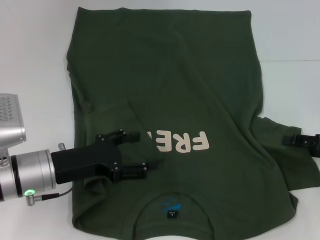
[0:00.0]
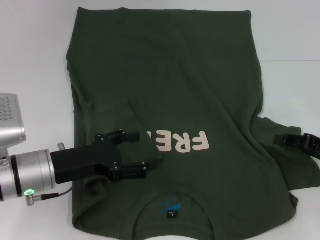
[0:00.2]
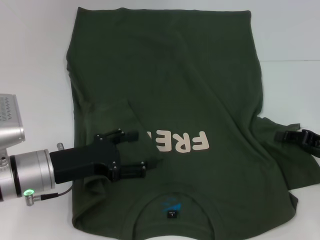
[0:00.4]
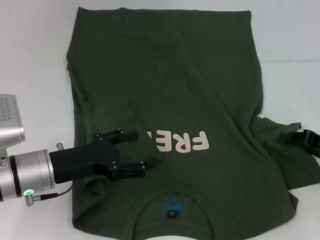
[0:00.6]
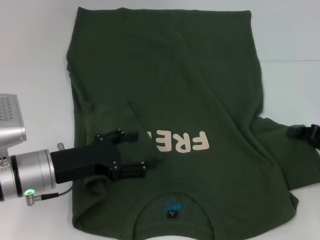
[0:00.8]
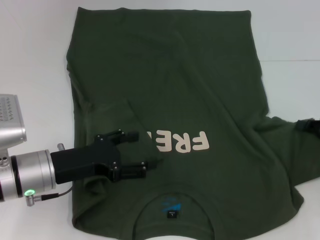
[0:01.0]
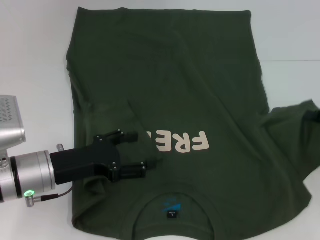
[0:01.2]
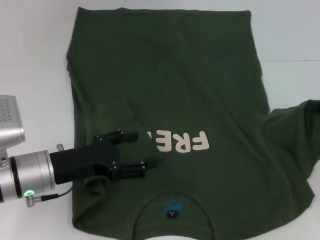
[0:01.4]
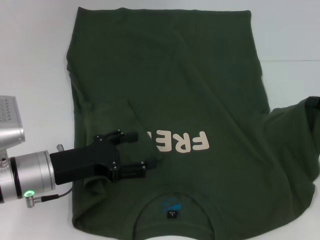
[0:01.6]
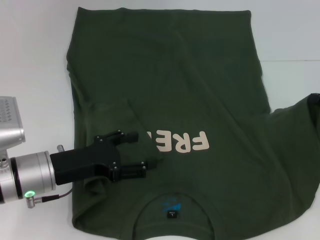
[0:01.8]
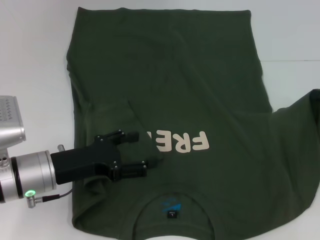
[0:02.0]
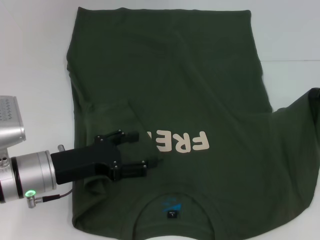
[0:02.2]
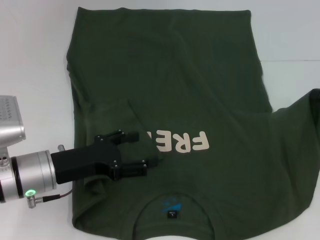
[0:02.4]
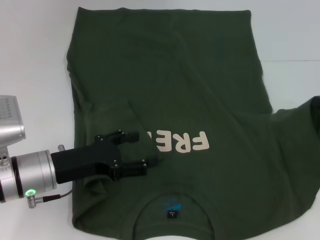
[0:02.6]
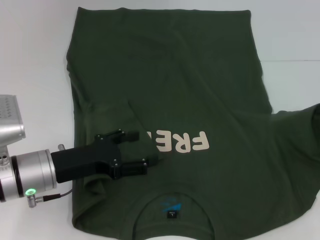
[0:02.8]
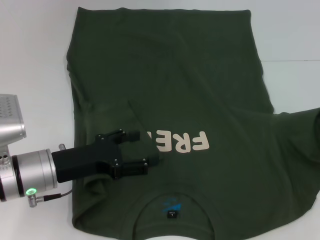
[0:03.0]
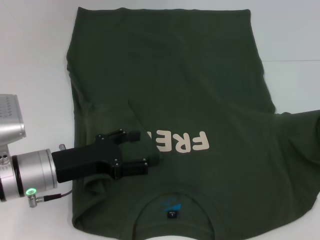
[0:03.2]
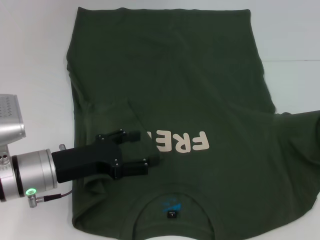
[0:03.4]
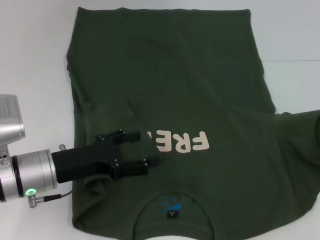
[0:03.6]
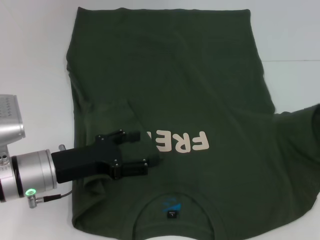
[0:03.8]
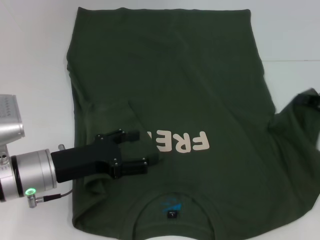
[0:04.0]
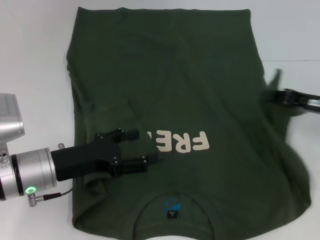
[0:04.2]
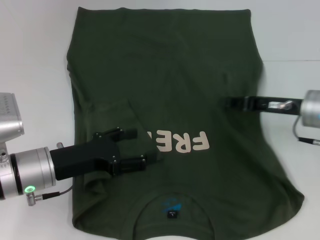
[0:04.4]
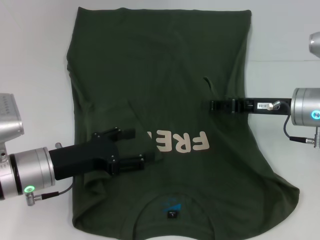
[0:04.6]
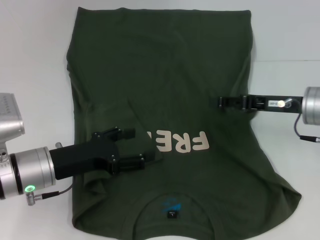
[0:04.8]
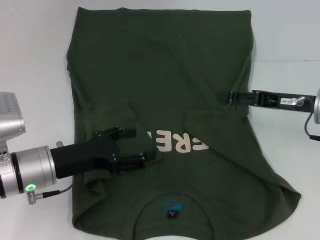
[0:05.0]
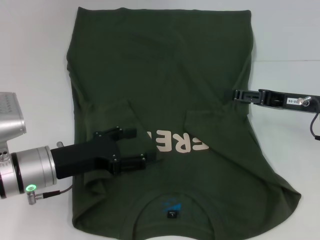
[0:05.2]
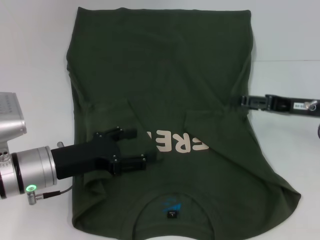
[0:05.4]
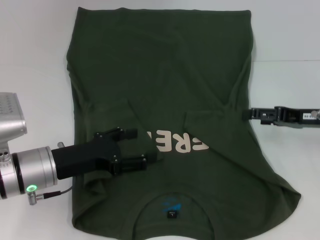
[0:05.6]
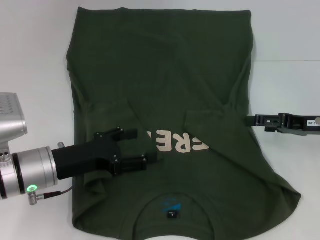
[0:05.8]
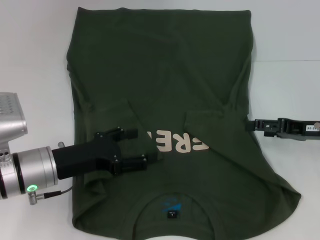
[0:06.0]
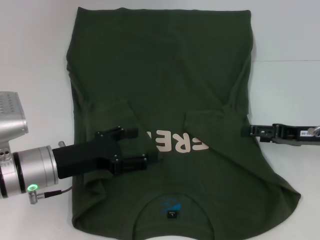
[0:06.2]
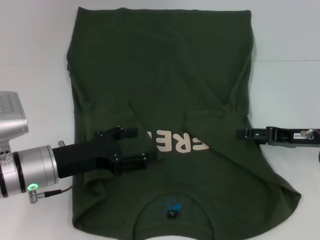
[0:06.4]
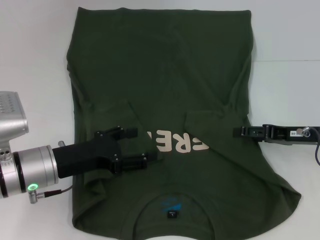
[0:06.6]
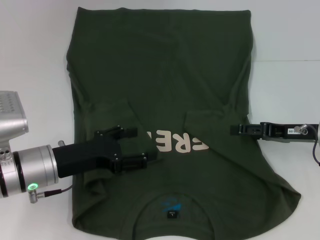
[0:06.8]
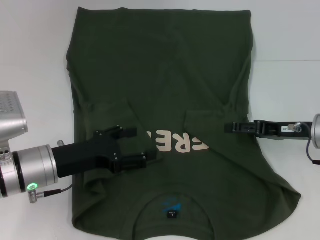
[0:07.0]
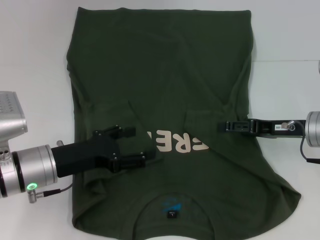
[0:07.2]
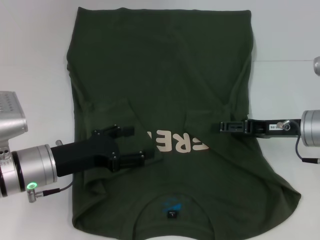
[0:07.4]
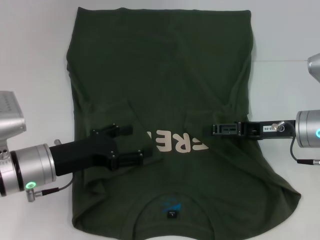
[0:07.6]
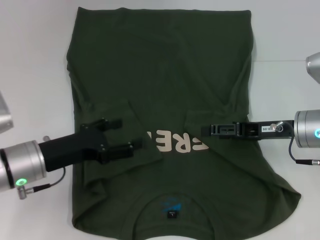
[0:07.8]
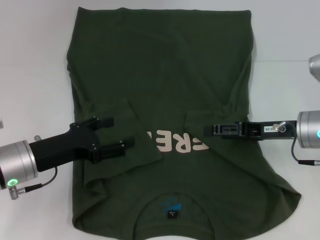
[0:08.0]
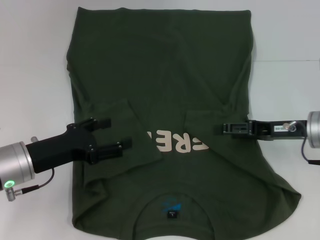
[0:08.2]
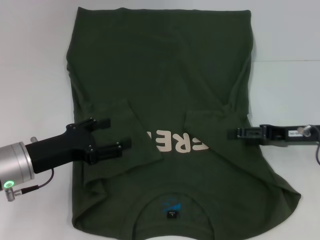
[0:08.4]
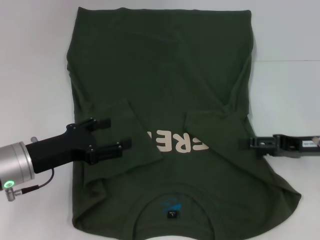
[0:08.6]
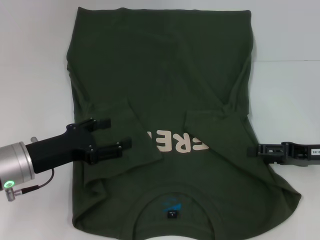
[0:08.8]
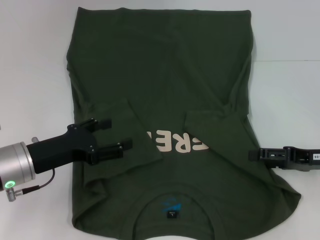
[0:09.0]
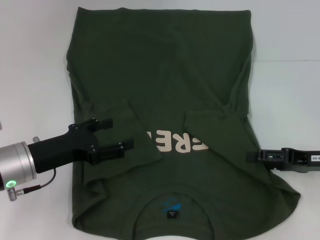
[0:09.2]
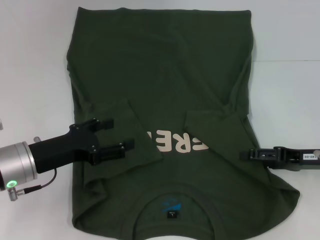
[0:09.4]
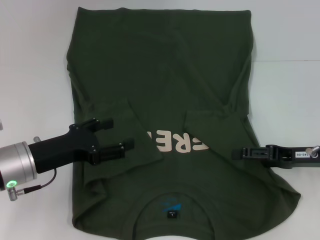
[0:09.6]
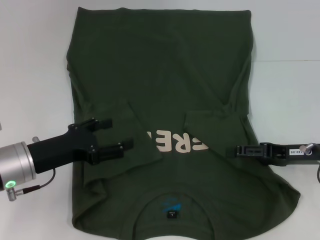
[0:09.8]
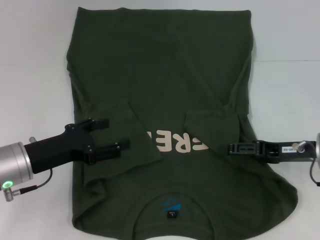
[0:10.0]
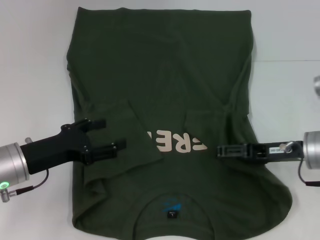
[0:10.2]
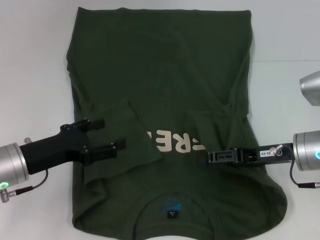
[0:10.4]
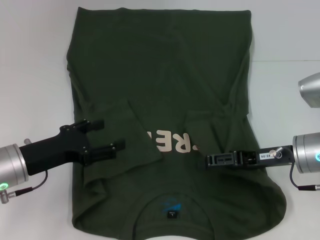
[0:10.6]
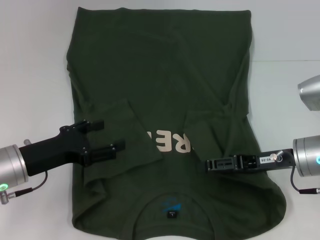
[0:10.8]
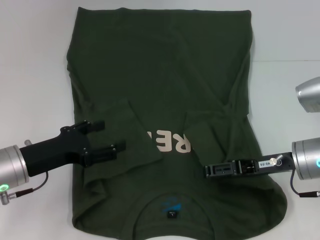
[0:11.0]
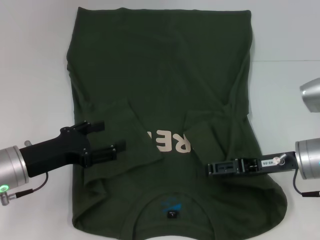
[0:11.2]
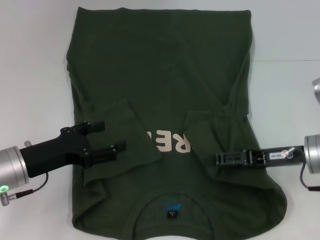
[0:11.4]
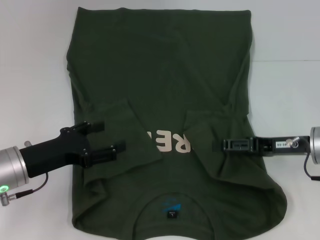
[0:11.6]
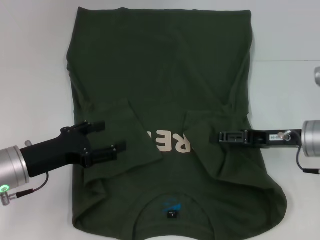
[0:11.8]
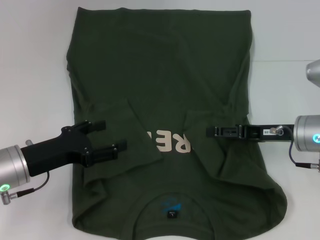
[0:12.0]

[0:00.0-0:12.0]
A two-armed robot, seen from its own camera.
0:00.0 to 0:01.6: The right gripper closes.
0:01.6 to 0:03.0: There are only small adjustments of the grippers.
0:03.0 to 0:04.4: The right gripper moves to the left, about 15 cm.
0:04.4 to 0:06.0: The right gripper travels to the right by approximately 5 cm, and opens.
0:06.0 to 0:07.6: The right gripper moves to the left, approximately 5 cm.
0:07.6 to 0:09.0: The right gripper goes roughly 5 cm to the right.
0:09.0 to 0:10.4: The right gripper travels to the left by approximately 10 cm.
0:10.4 to 0:12.0: The grippers make only small movements.

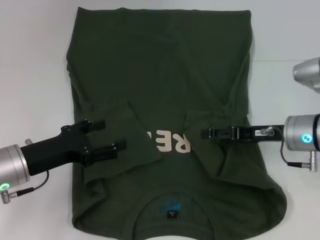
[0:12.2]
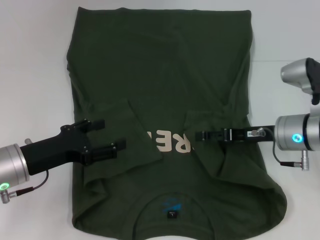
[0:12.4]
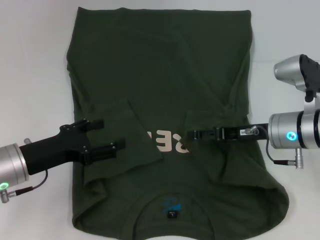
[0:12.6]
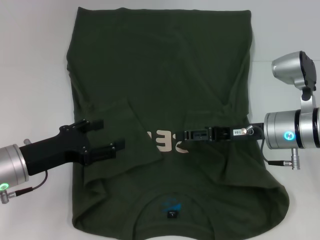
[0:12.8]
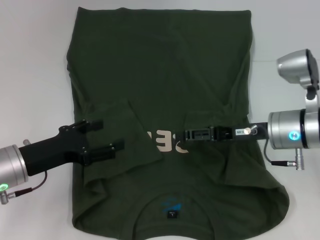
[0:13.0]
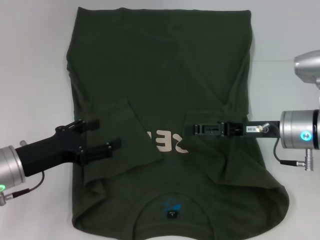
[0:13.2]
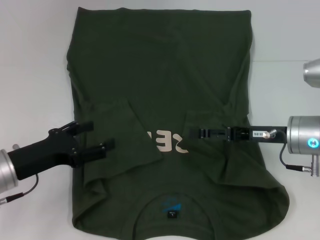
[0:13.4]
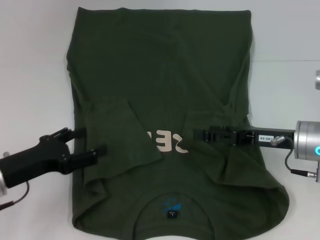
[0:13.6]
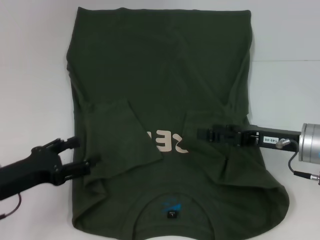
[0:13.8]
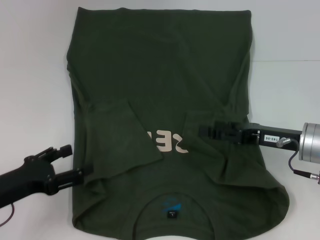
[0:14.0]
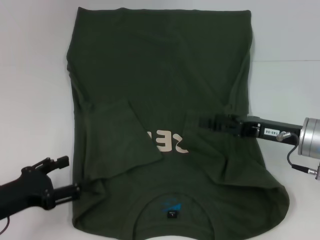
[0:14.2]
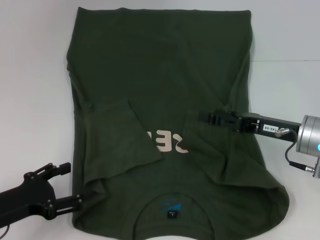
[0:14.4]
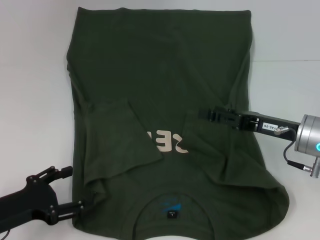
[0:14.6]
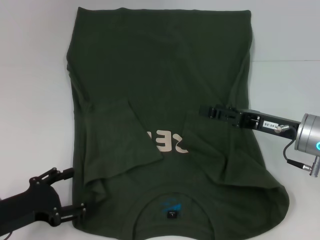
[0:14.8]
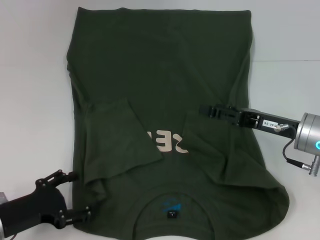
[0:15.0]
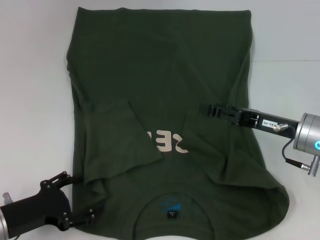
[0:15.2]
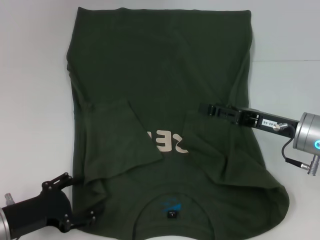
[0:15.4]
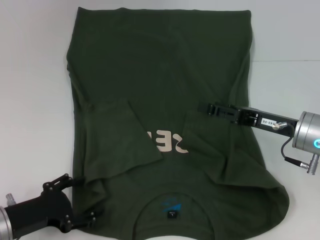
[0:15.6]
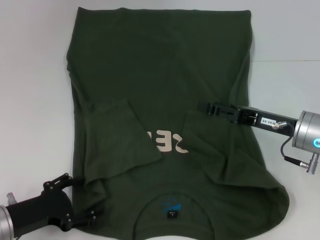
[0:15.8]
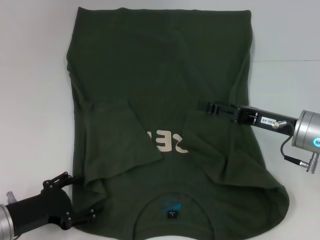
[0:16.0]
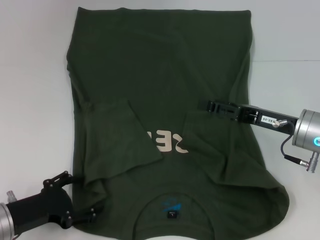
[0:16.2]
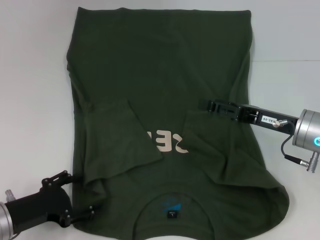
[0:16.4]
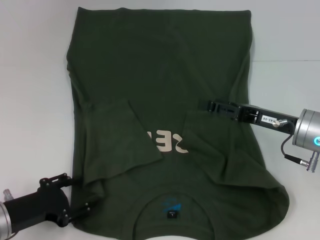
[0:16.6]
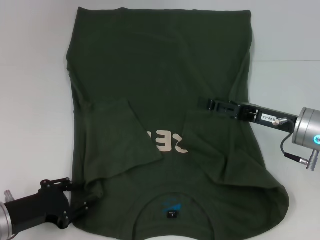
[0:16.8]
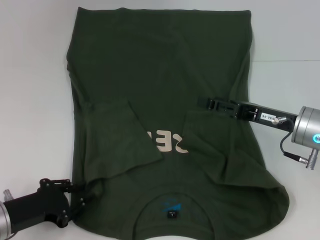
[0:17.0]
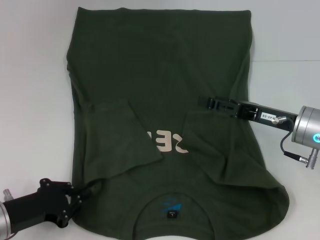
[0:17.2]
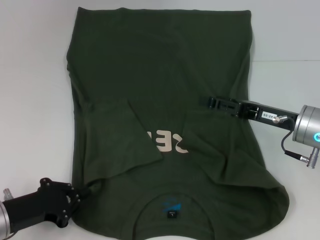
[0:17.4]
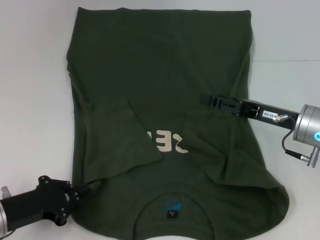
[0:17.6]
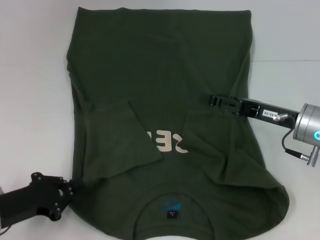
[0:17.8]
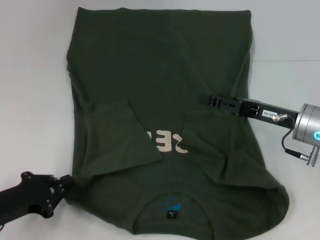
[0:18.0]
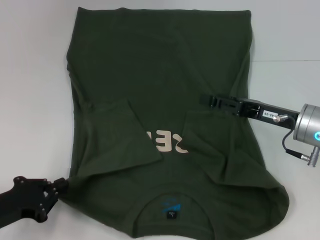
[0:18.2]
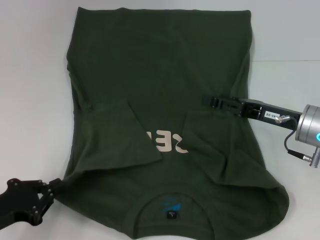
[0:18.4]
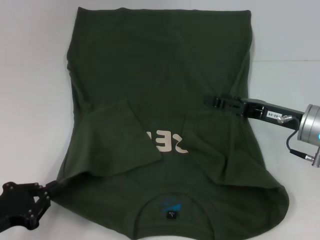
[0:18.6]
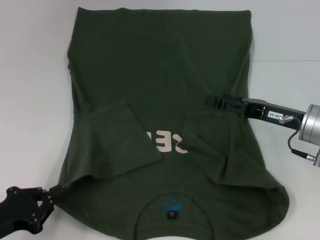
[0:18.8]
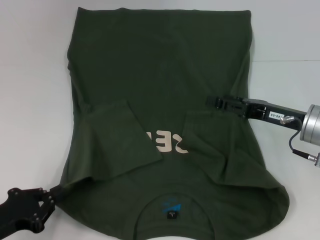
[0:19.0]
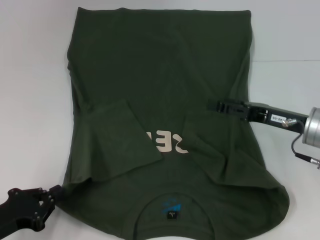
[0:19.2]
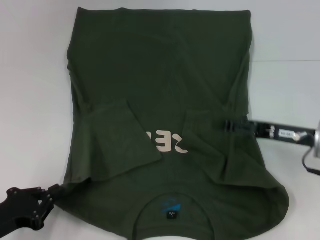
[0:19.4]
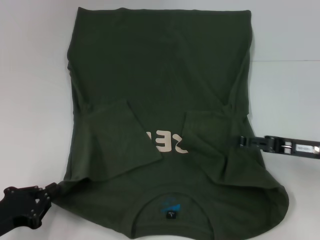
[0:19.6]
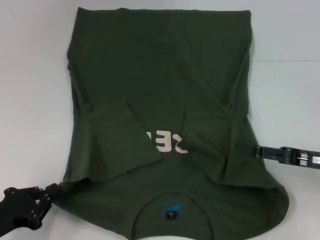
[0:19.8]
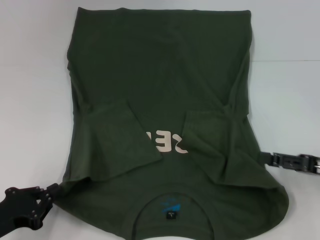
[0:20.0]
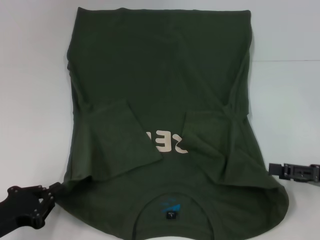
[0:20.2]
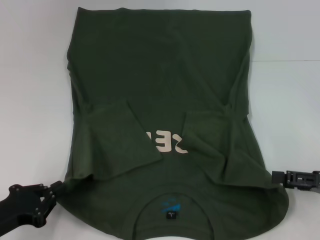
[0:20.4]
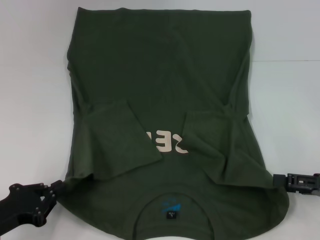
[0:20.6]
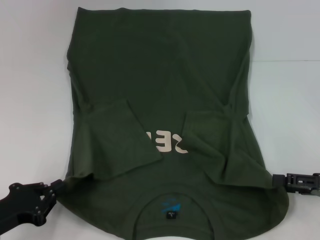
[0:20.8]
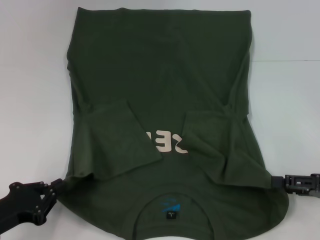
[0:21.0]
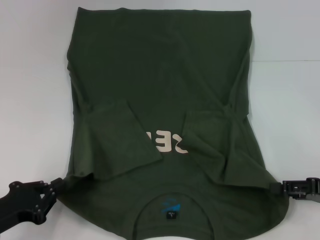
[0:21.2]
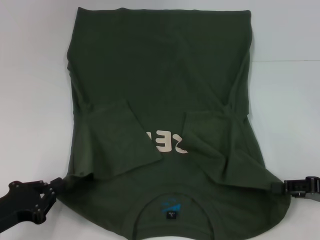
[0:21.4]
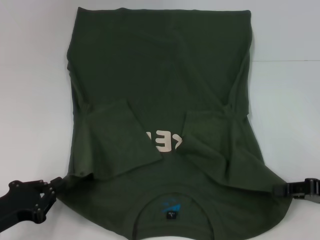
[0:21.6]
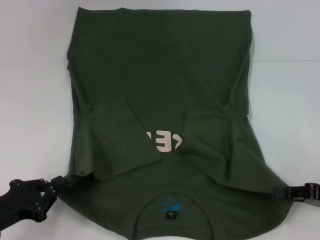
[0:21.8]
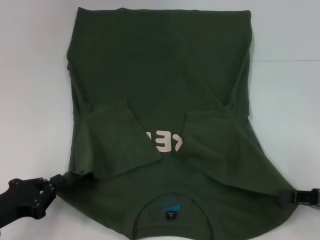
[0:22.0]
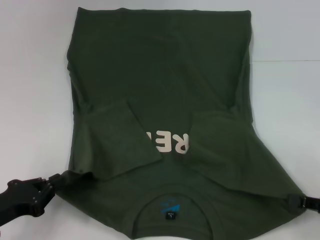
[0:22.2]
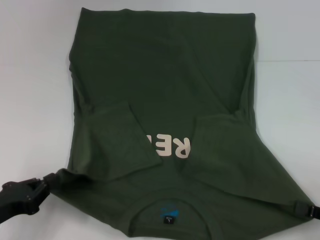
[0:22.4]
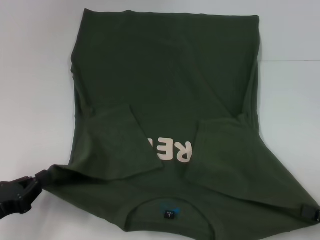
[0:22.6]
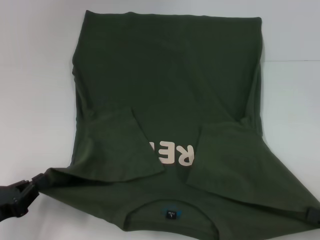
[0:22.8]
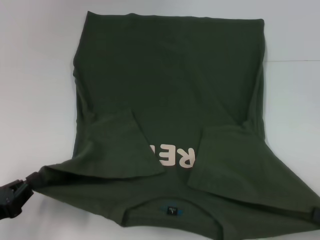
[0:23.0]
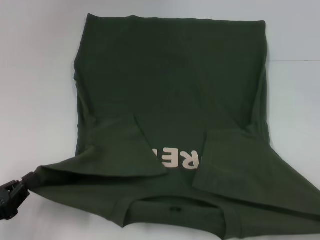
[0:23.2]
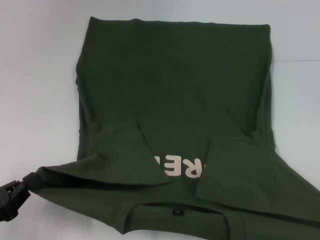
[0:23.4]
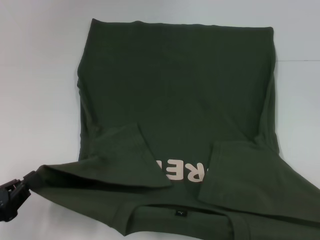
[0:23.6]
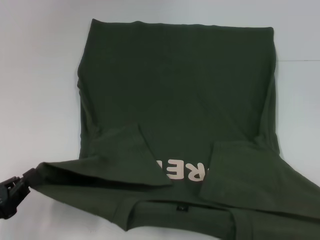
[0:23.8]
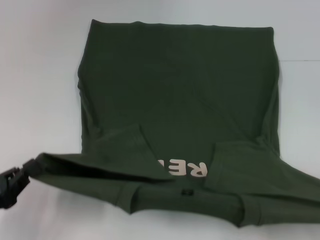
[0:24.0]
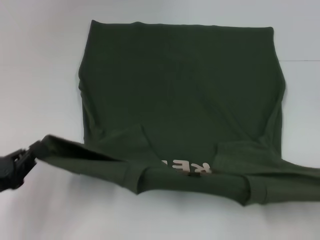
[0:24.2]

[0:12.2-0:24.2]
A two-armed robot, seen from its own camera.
Step, 0:14.2 to 0:18.4: Grab the bottom left corner with your left hand.
Step, 0:18.6 to 0:22.2: Grab the bottom right corner with your right hand.
0:12.2 to 0:13.8: The left gripper ends up some 5 cm from where it was.
0:13.8 to 0:15.2: The left gripper moves about 5 cm.
0:15.2 to 0:16.6: Neither gripper changes place.
0:16.6 to 0:18.2: The left gripper closes up.
0:18.2 to 0:19.8: The right gripper shifts roughly 10 cm to the right and backward.
0:19.8 to 0:21.2: There are only small adjustments of the grippers.
0:21.2 to 0:22.6: The right gripper is displaced backward by about 10 cm, and closes its fingers.
0:22.6 to 0:24.2: The right gripper changes place by approximately 5 cm.
